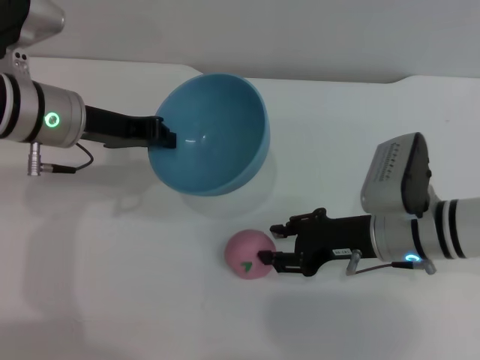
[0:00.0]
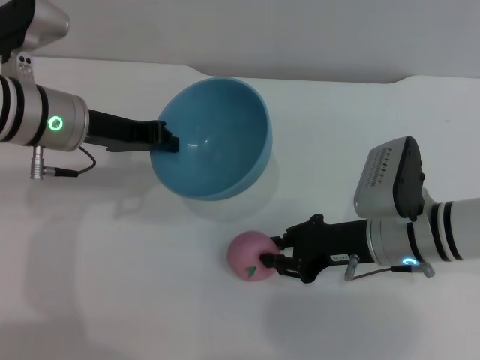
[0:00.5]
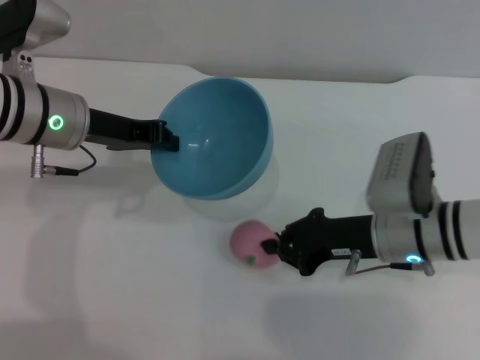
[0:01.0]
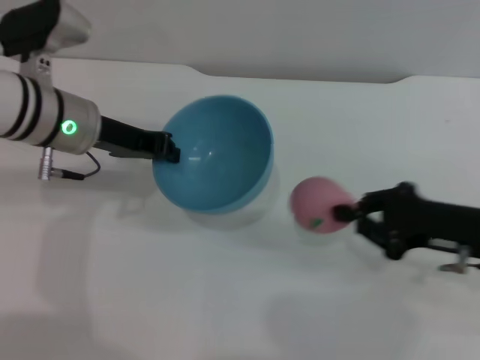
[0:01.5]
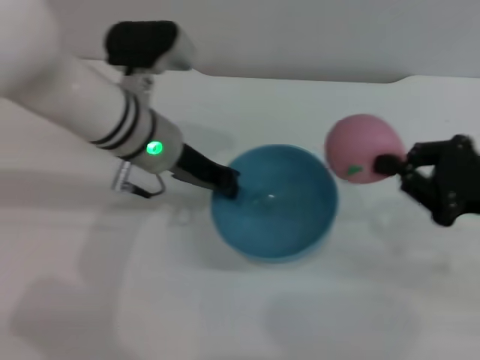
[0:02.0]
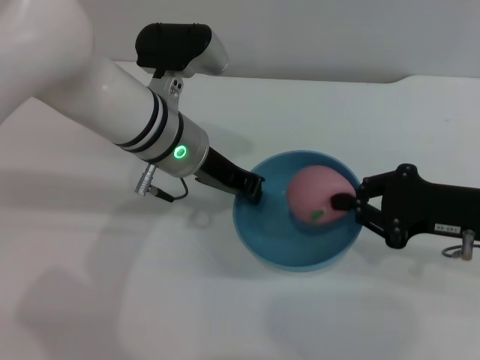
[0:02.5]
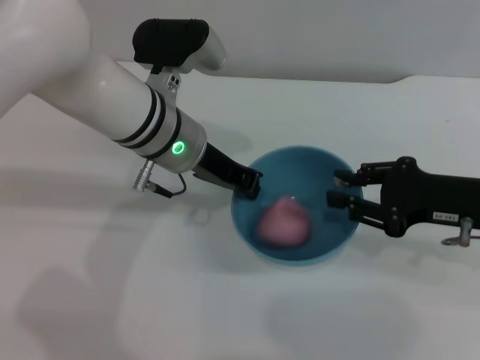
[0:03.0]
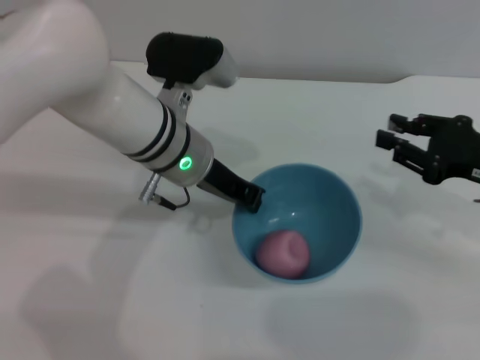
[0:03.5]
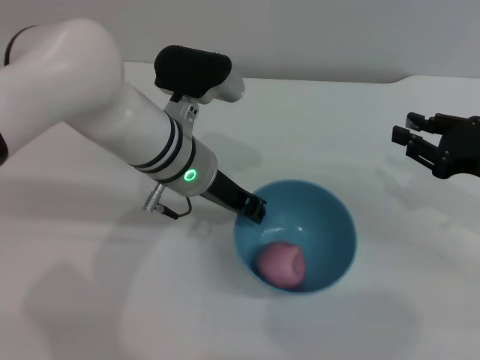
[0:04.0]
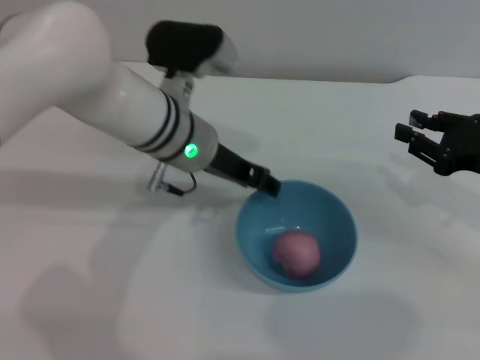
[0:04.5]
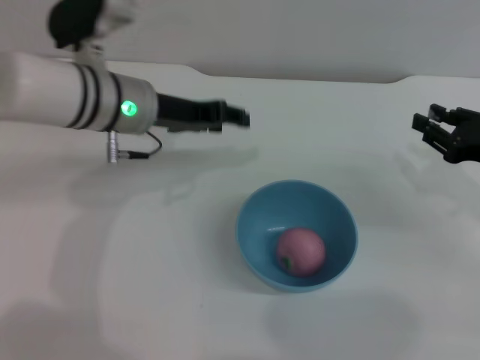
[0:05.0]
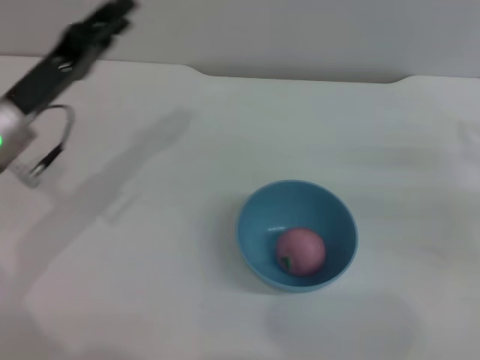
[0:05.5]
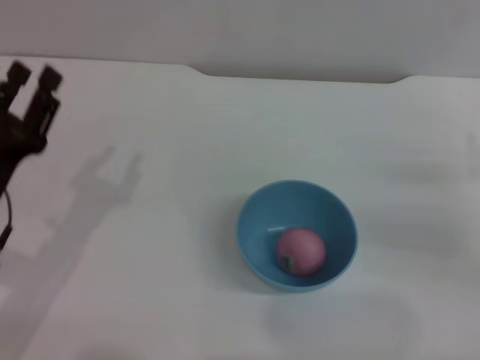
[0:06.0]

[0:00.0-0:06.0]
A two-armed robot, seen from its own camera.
Task of the whole recording: put the peach into the blue bowl and pour it out repeatedly.
Step, 0:02.0 to 0:03.0: Place the peach into the bowl.
Step, 0:03.5 to 0:04.5: Place the bowl on the table.
0:00.0 to 0:02.0: The left gripper is displaced to the right by some 10 cm, while the right gripper goes approximately 15 cm to the right and upward, and closes up.
0:02.0 to 0:04.0: The right gripper opens up.
0:04.0 to 0:06.0: The right gripper travels downward by some 5 cm; the left gripper heads to the left and backward, covering approximately 25 cm, and opens.
